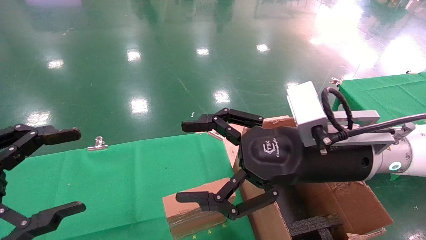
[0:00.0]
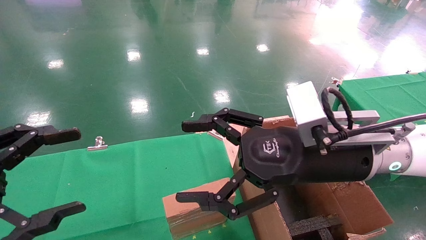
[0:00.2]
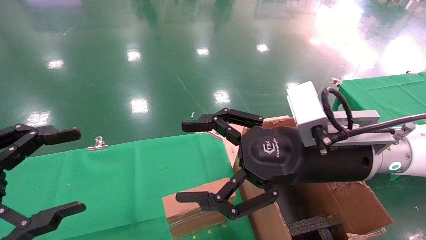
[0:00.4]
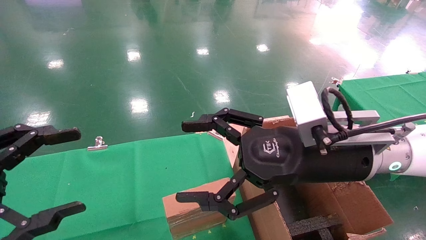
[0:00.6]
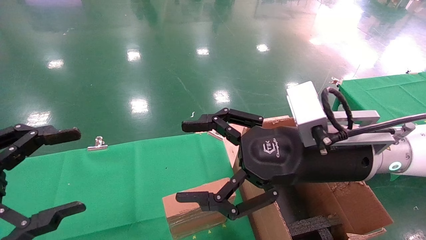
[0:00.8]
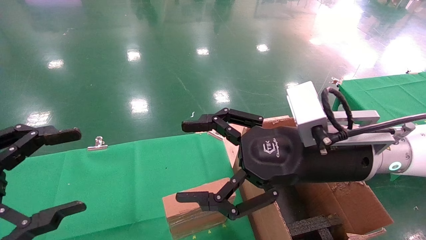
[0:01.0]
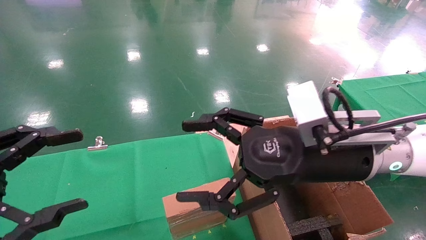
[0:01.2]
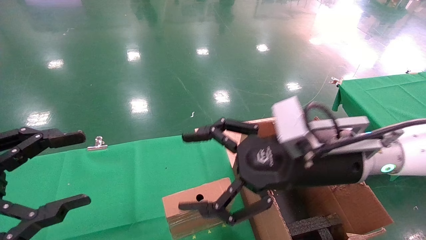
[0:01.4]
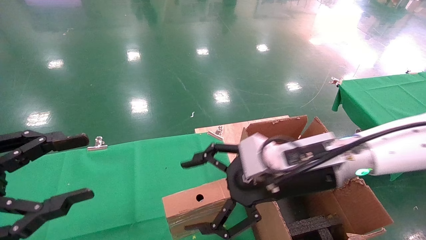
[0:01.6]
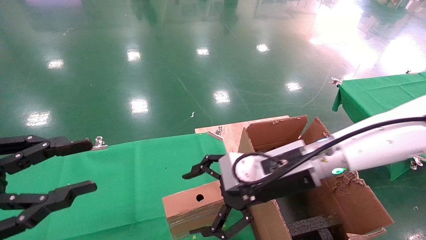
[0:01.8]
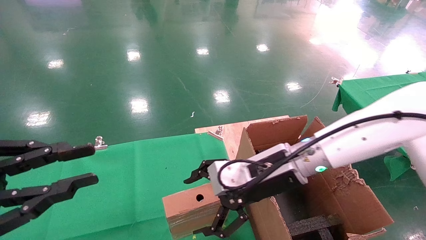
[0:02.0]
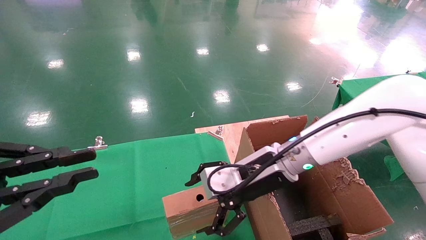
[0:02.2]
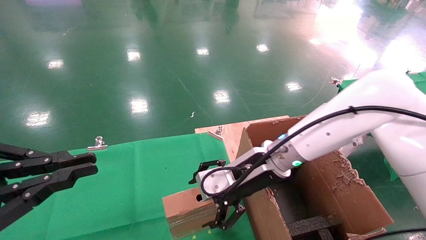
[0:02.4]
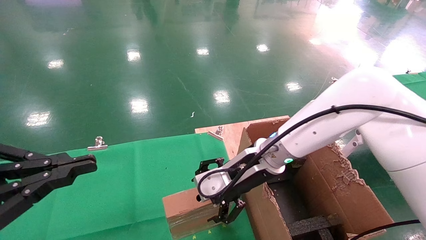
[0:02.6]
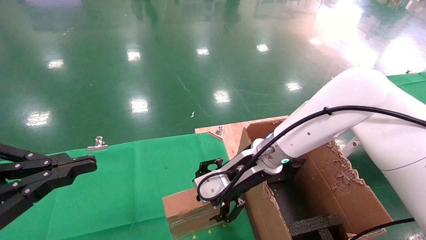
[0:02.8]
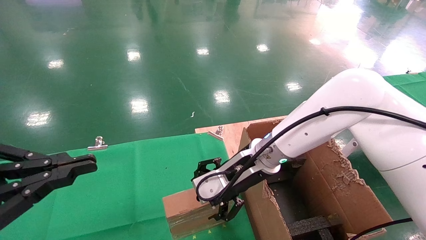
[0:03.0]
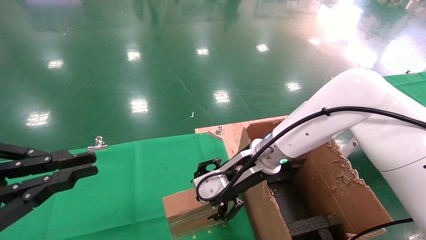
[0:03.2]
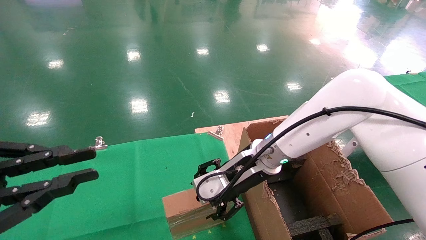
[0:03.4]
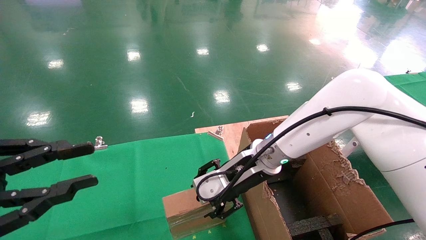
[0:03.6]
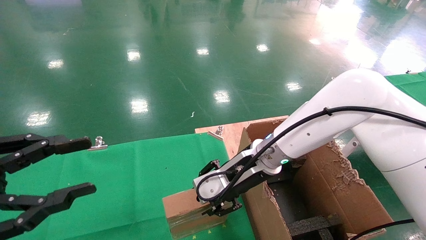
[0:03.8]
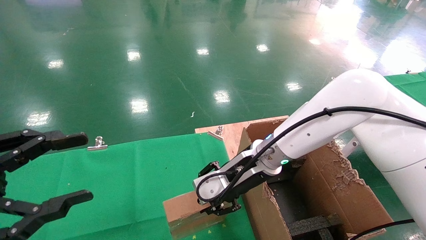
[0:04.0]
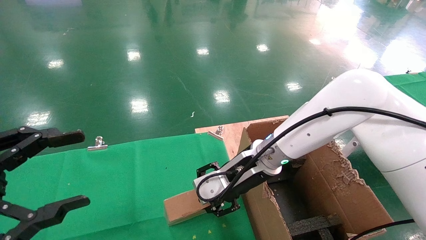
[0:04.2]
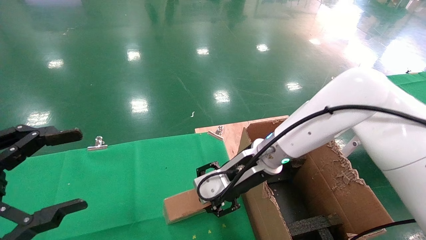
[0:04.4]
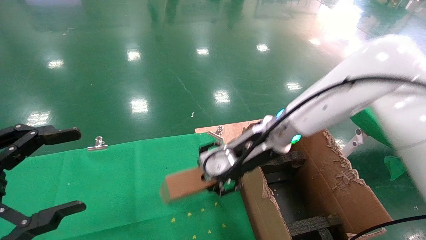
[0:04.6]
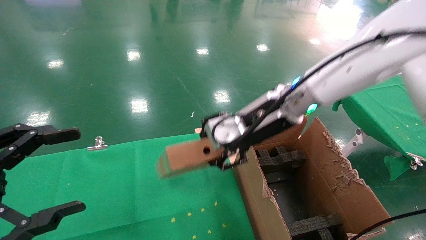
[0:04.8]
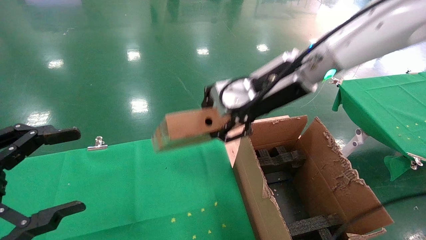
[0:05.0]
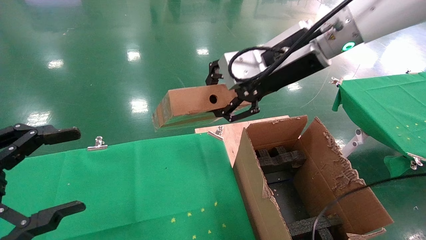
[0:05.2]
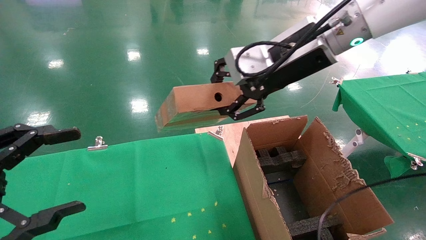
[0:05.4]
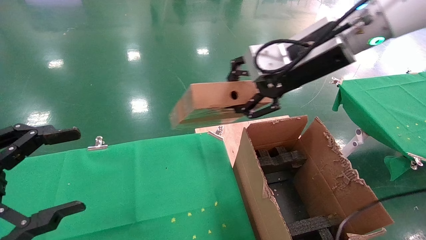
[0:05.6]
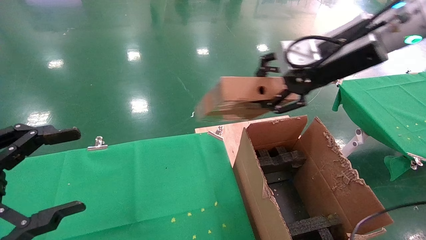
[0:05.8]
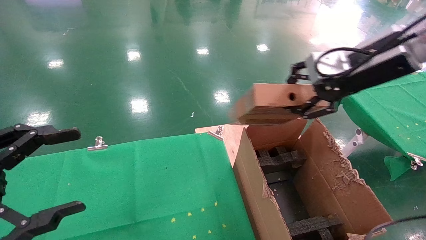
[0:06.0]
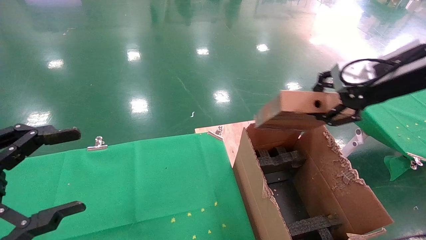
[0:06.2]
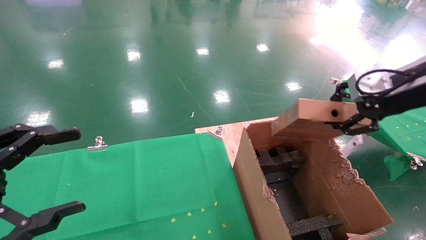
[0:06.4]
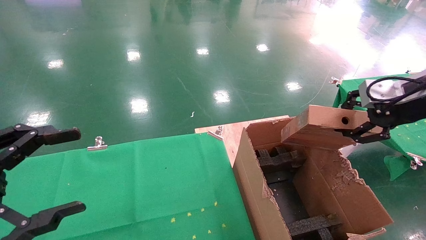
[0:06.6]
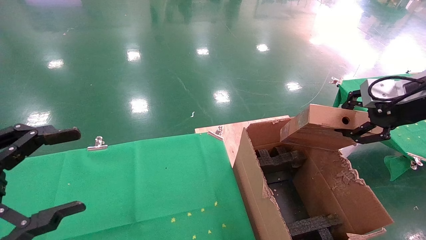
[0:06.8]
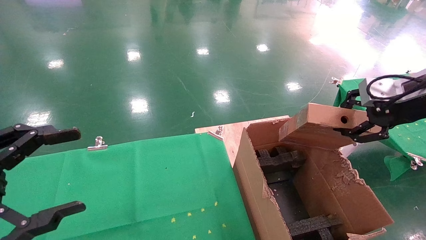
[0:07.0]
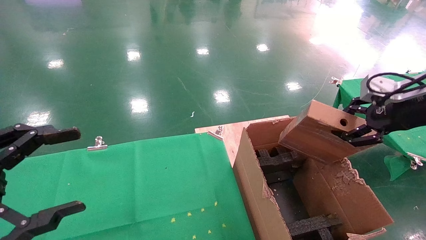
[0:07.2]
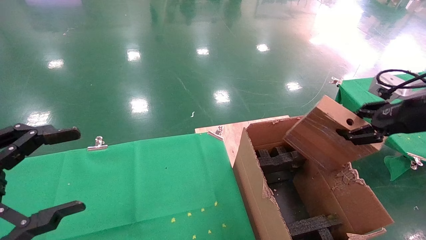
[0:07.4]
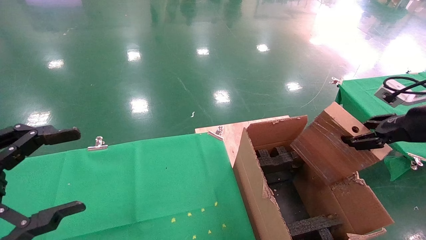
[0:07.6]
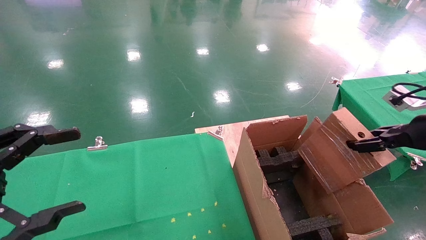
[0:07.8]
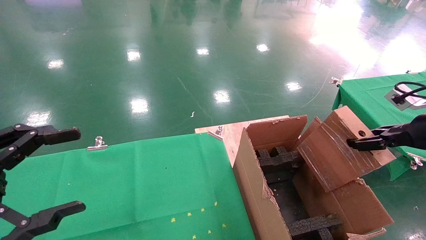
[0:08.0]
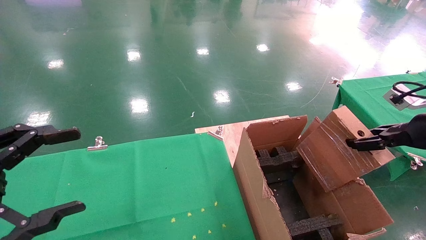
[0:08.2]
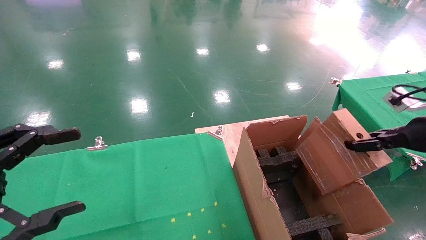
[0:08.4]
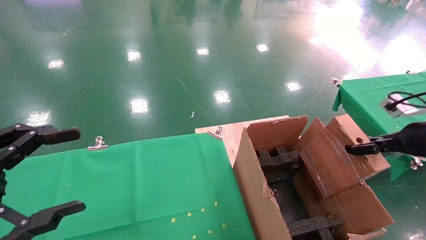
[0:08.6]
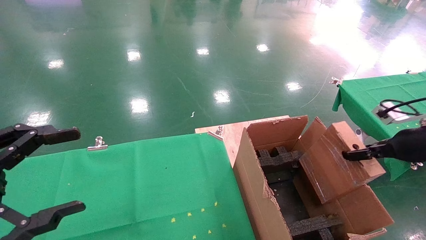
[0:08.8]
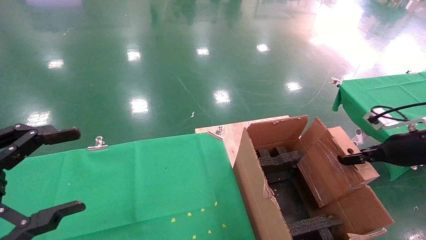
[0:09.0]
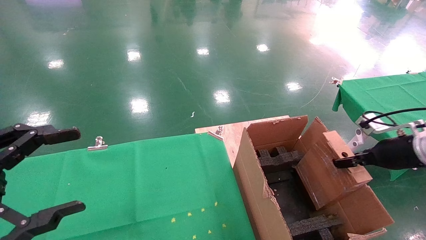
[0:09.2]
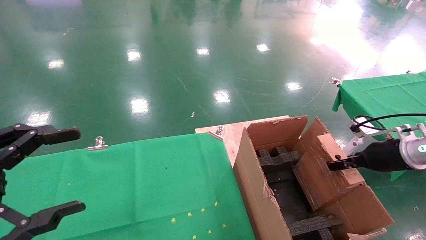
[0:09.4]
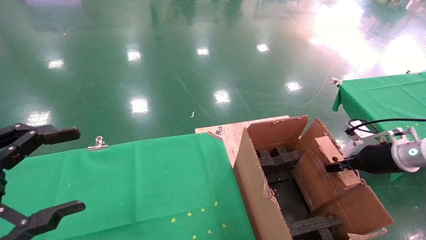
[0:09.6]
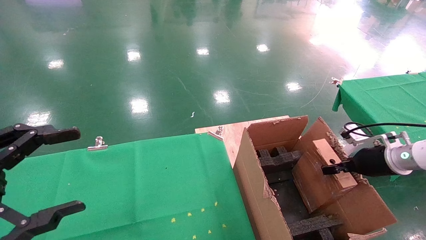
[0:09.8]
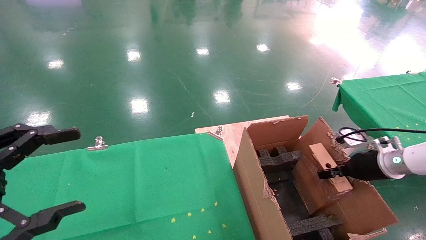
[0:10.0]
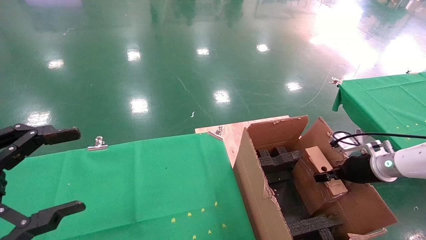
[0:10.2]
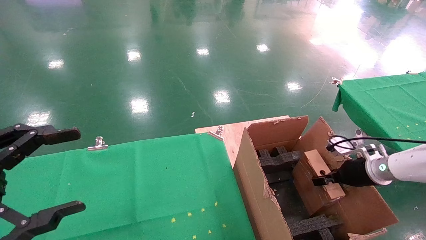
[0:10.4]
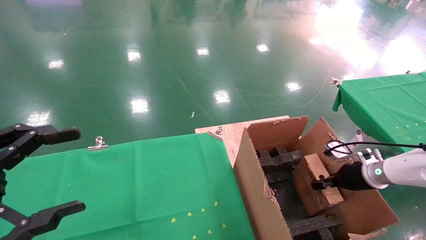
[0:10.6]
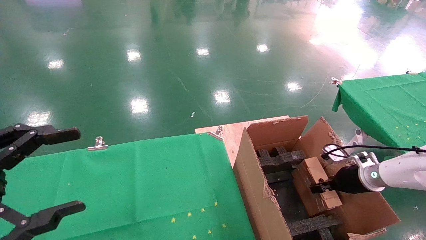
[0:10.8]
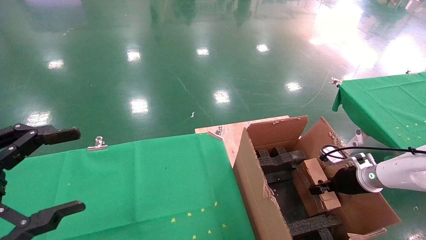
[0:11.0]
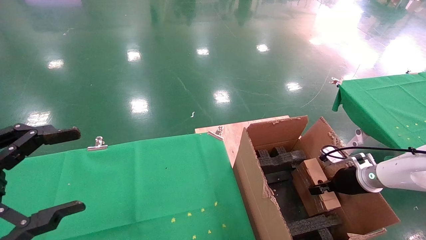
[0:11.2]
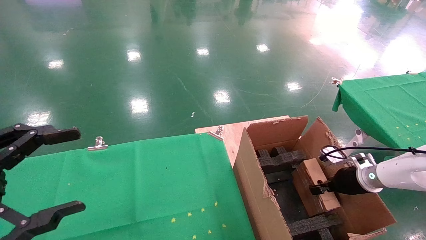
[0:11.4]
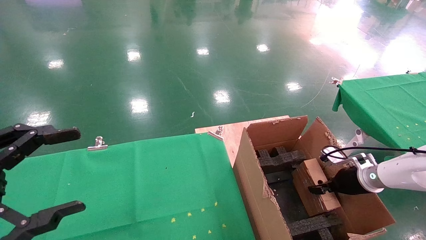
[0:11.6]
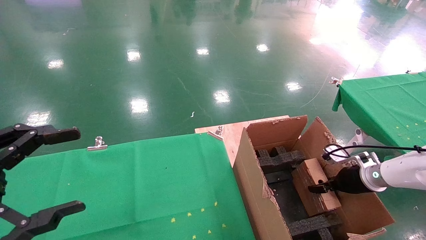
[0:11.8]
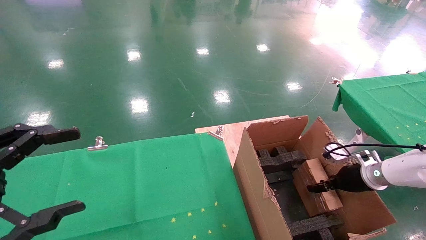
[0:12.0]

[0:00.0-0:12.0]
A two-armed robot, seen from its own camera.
Task of the whole recording: using a robotic arm to pick up a cardboard box and palace it the carton.
Step, 0:01.4 to 0:04.0: Pick up the mouse and the power cord paper box.
0:00.0 to 0:01.6: The right gripper ends up roughly 5 cm from where it was.
0:01.6 to 0:03.0: The left gripper closes up, while the right gripper is displaced forward by some 10 cm.
0:03.0 to 0:04.4: The right gripper closes its fingers, while the left gripper opens.
0:04.4 to 0:06.0: The right gripper moves to the right and upward, approximately 25 cm.
0:06.0 to 0:07.6: The right gripper heads to the right and downward, covering roughly 20 cm.
0:07.6 to 0:09.0: The right gripper goes some 10 cm downward.
0:09.0 to 0:10.4: The right gripper is displaced downward and forward by approximately 15 cm.
0:10.4 to 0:12.0: The right gripper opens its fingers.

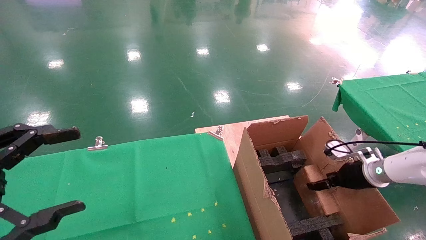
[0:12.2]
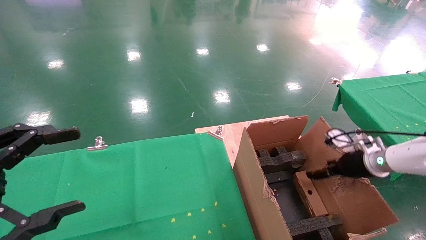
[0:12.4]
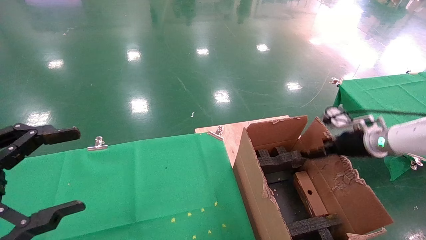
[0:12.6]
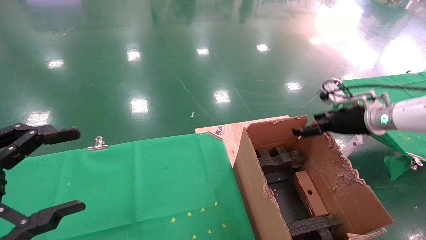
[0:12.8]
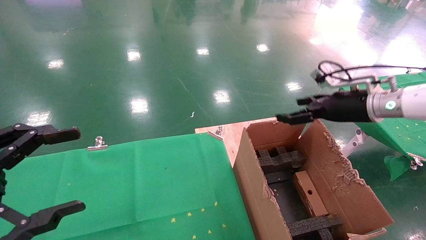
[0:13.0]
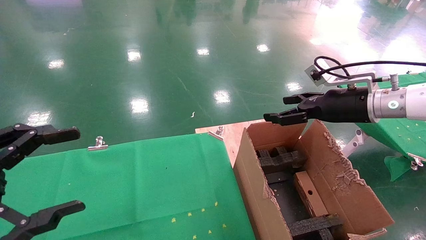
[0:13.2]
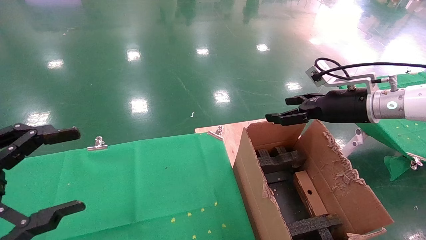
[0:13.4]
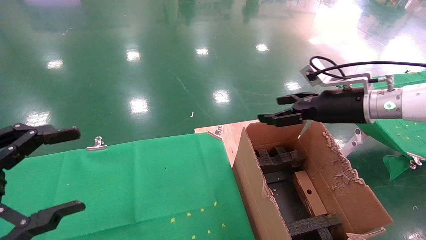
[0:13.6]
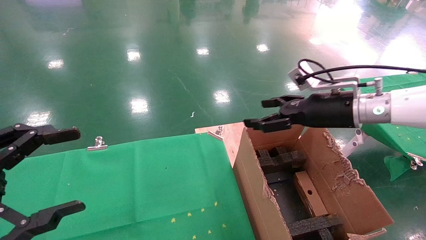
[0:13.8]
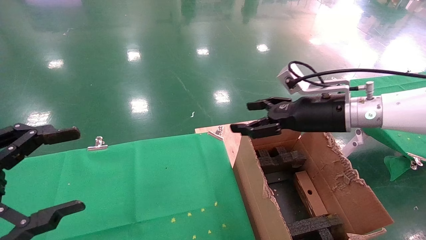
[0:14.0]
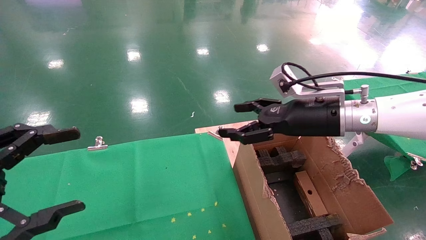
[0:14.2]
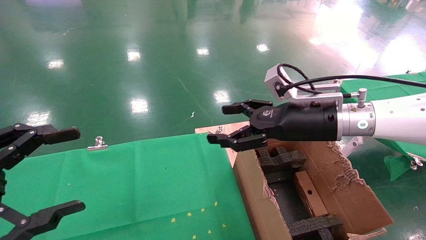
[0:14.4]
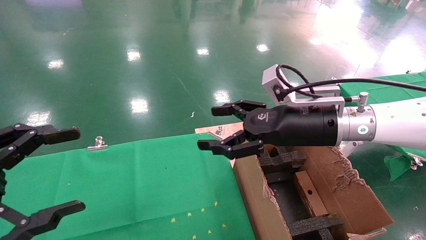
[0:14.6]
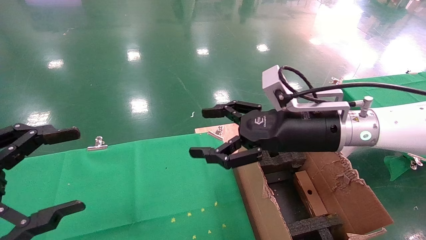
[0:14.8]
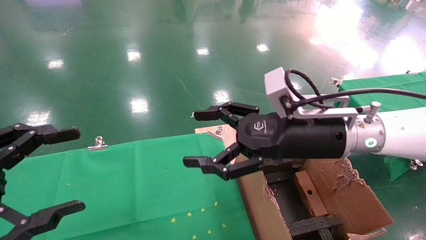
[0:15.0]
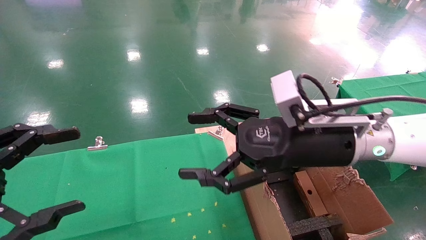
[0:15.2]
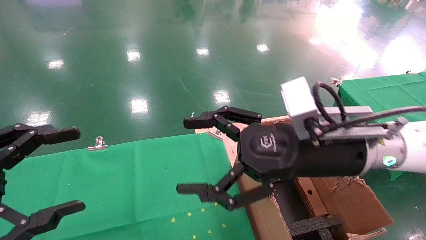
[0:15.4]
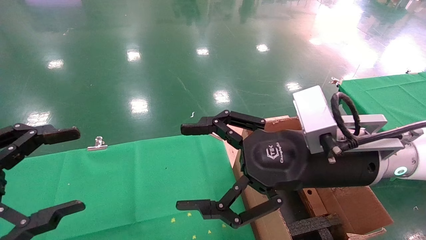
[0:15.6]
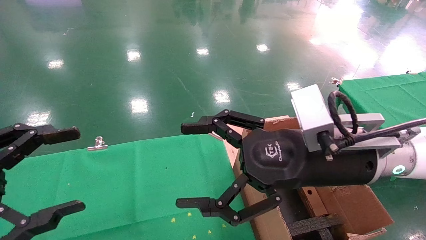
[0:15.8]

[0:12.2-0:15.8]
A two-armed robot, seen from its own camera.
Task of the whole recording: using a robotic arm to pick up a cardboard box and palace it the carton.
0:12.2 to 0:14.0: The right gripper goes about 25 cm upward and to the left, and opens.
0:14.0 to 0:15.8: The right gripper travels backward and to the left by some 15 cm.
